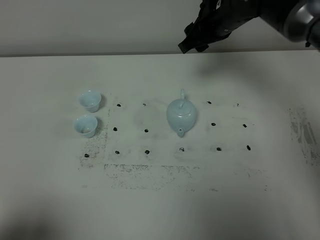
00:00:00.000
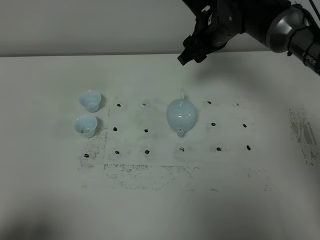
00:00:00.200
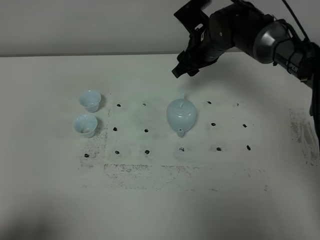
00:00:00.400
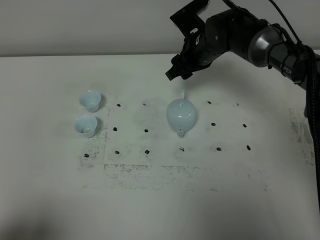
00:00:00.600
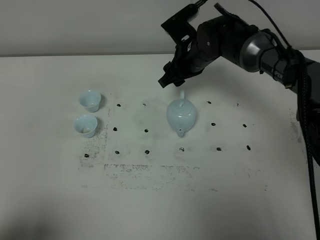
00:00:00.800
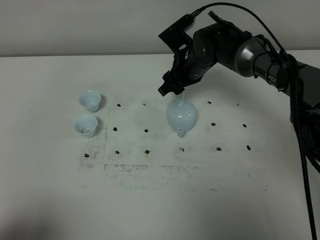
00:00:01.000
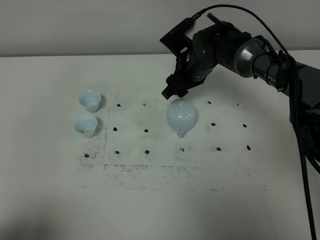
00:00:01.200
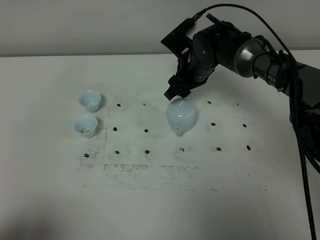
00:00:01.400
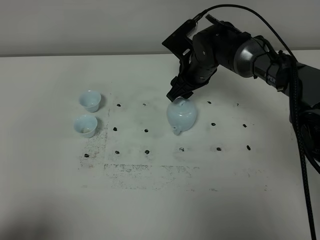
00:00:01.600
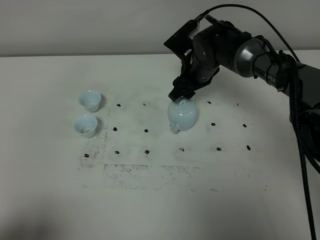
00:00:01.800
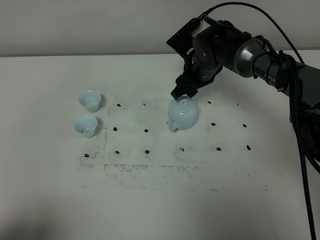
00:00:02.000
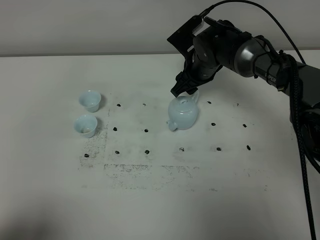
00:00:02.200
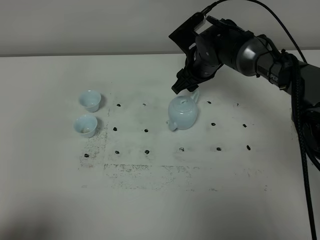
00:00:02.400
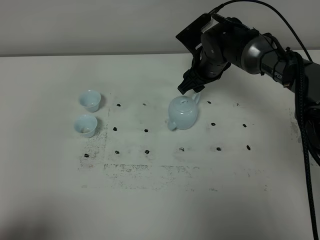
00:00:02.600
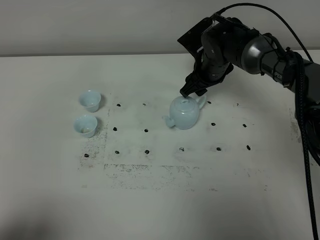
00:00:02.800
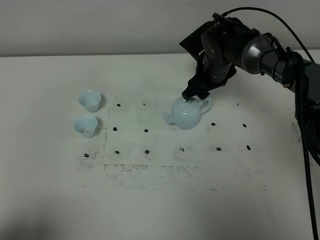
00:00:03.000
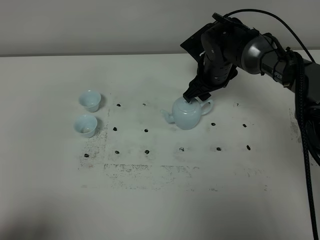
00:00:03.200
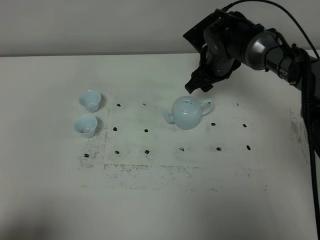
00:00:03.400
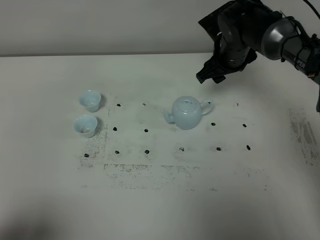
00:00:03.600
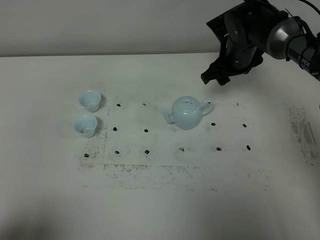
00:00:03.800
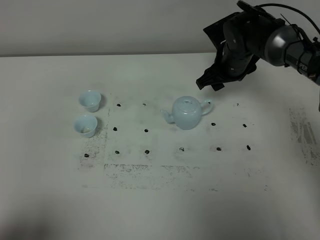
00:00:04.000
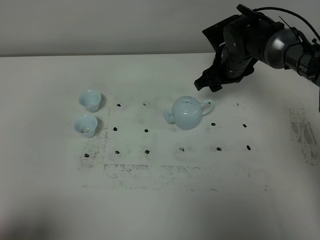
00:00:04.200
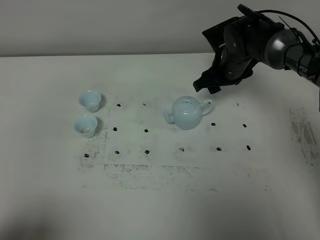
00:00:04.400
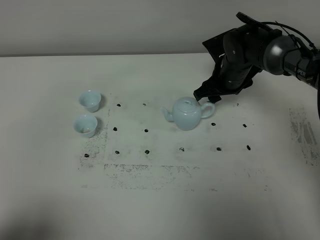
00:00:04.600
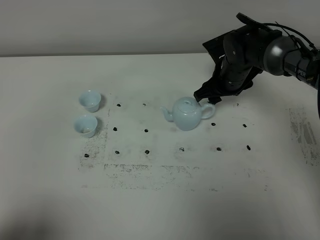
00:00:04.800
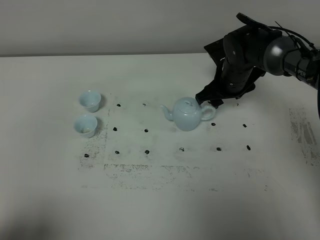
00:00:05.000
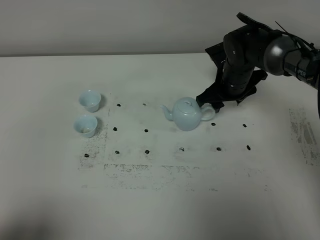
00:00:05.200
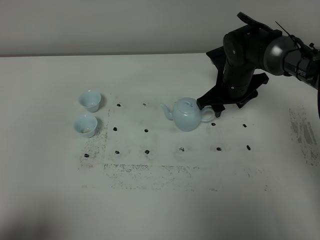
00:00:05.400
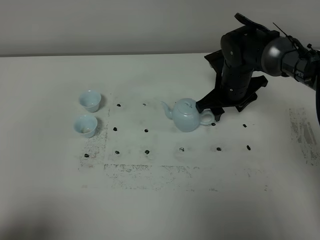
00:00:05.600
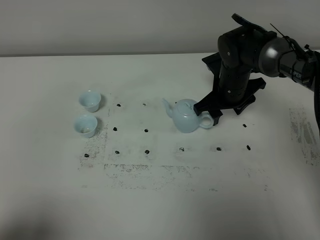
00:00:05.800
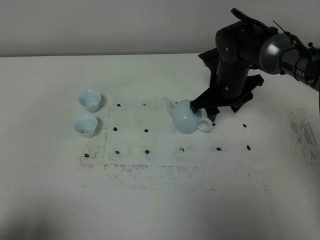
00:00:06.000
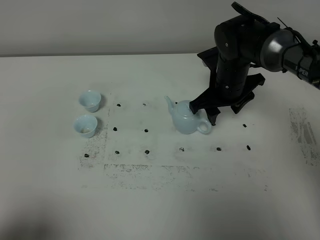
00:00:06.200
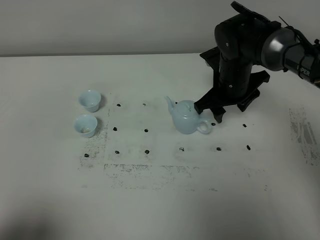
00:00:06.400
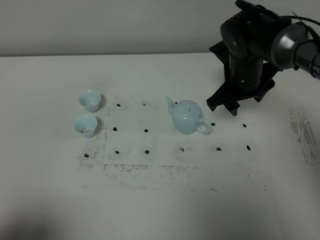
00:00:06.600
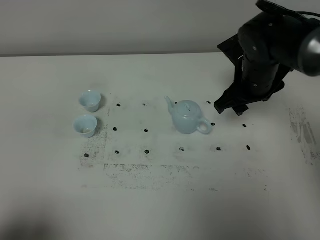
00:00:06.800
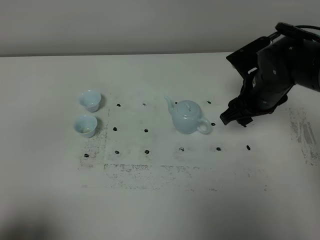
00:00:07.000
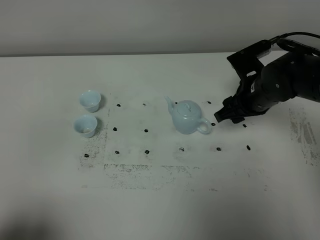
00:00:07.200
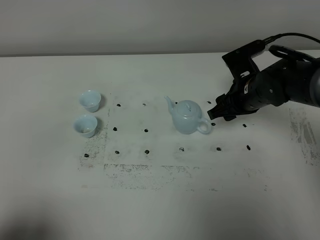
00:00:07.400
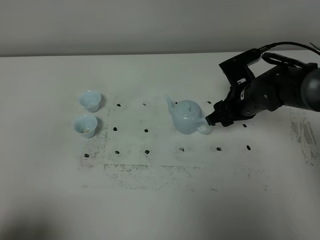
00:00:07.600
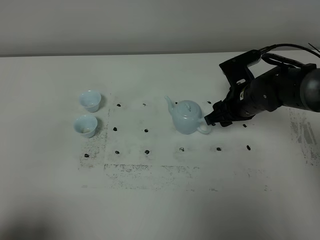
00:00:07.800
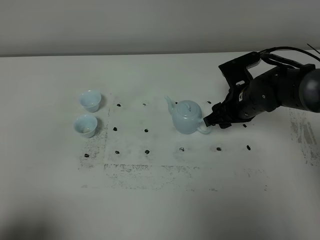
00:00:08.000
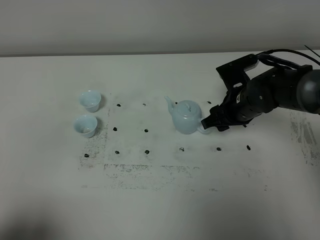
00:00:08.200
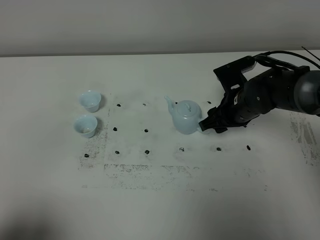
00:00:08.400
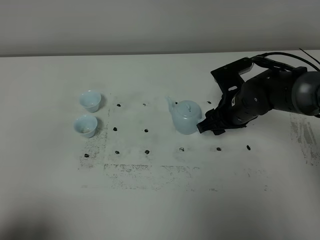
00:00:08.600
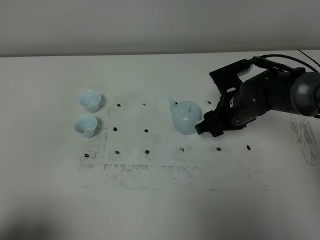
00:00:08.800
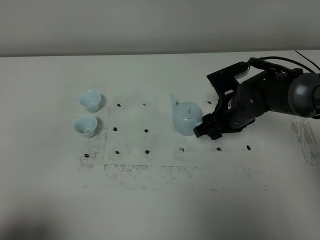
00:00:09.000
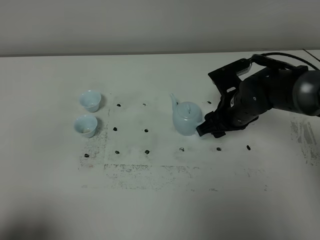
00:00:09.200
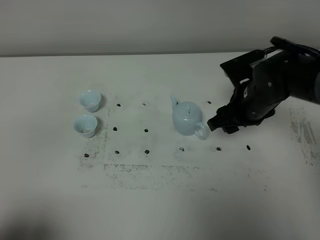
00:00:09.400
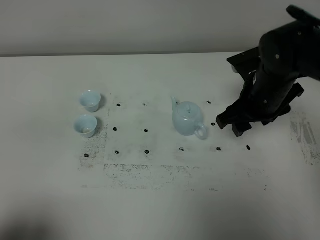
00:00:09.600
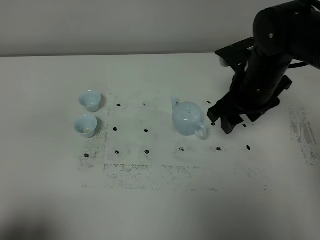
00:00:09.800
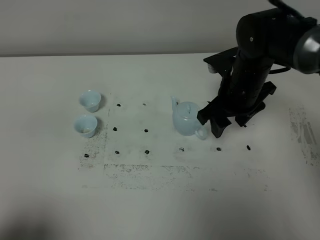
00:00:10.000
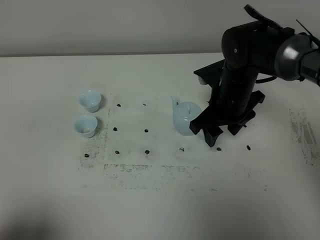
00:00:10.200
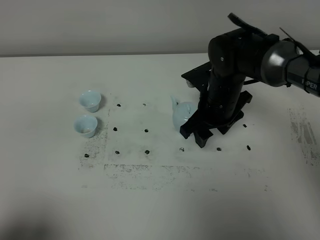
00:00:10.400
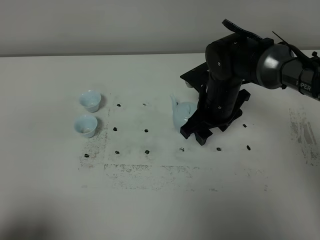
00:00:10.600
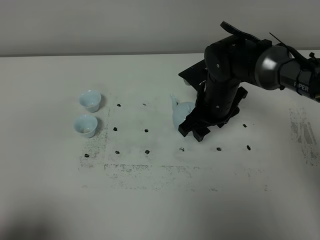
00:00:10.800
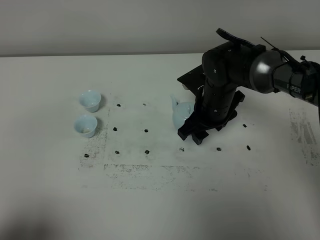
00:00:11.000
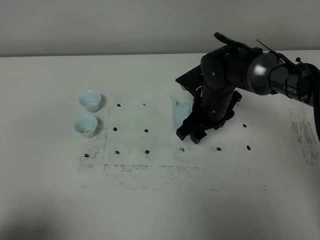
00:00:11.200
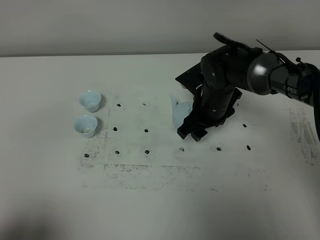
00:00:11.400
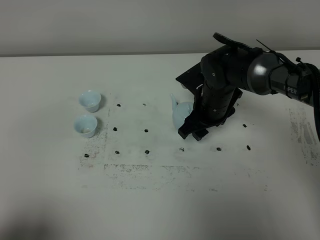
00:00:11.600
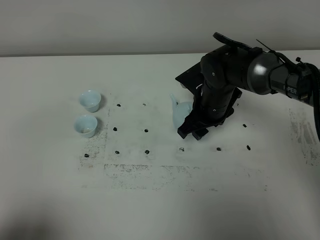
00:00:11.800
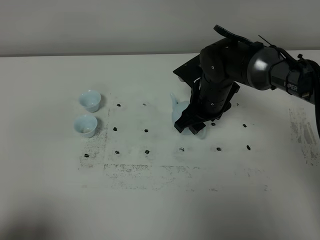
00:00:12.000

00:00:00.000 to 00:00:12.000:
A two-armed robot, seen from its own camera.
Task of the whole recording: grasp the blue porcelain teapot and pour the tea into the two blue porcelain teacups one by one, put the blue porcelain teapot back in its original place.
00:00:00.000 to 00:00:01.600: The right gripper is displaced downward by roughly 10 cm.
00:00:01.600 to 00:00:03.000: The grippers move only a little.
00:00:03.000 to 00:00:04.400: There are only small adjustments of the grippers.
00:00:04.400 to 00:00:06.000: The grippers move only a little.
00:00:06.000 to 00:00:07.600: The right gripper changes place by roughly 5 cm.
00:00:07.600 to 00:00:09.000: There are only small adjustments of the grippers.
00:00:10.400 to 00:00:12.000: There are only small adjustments of the grippers.

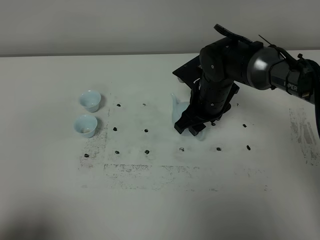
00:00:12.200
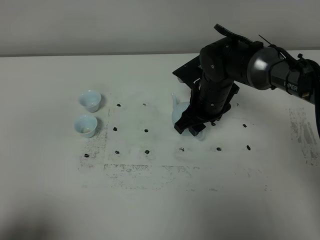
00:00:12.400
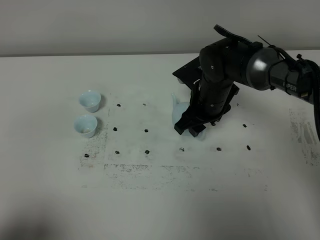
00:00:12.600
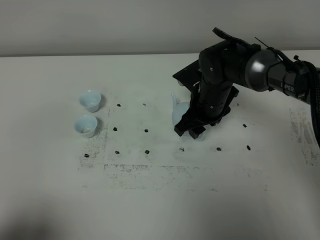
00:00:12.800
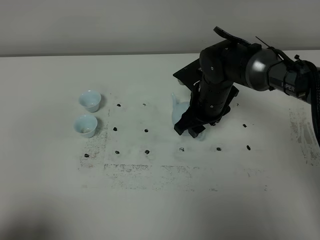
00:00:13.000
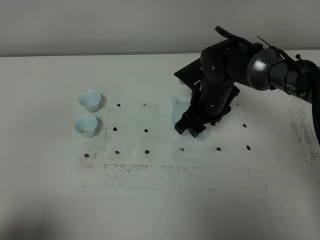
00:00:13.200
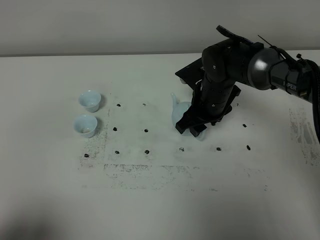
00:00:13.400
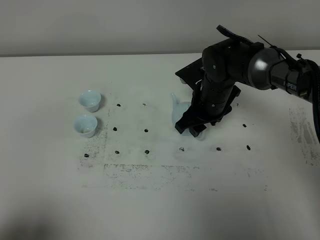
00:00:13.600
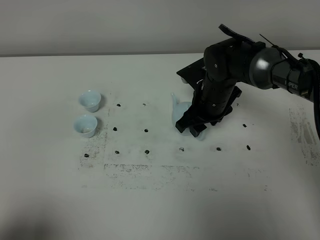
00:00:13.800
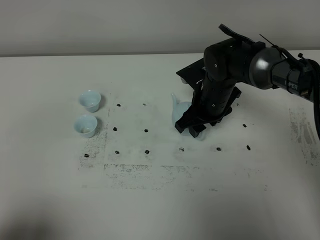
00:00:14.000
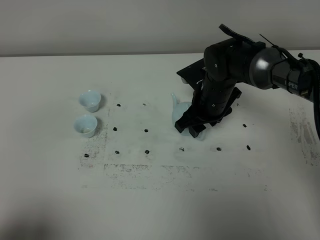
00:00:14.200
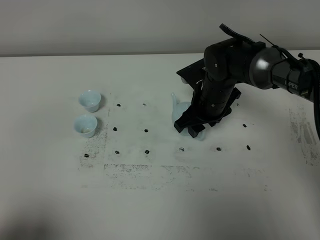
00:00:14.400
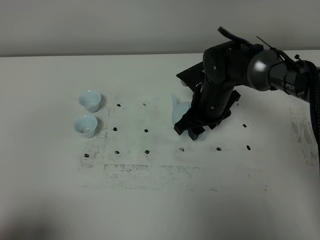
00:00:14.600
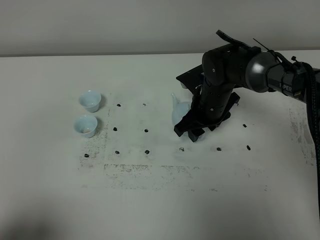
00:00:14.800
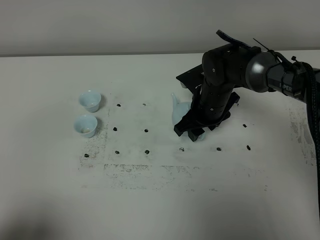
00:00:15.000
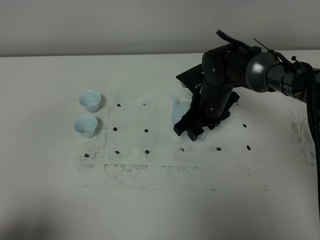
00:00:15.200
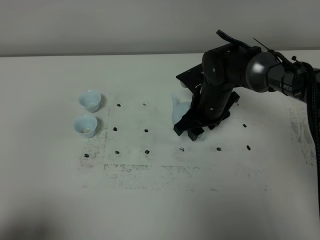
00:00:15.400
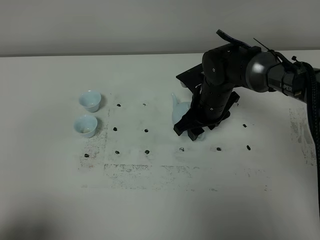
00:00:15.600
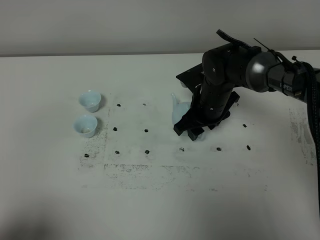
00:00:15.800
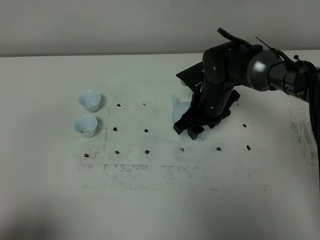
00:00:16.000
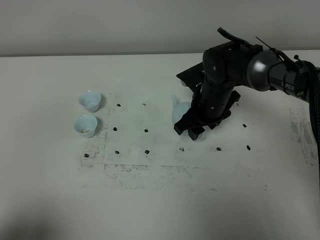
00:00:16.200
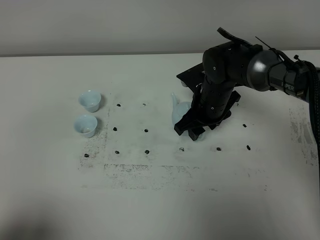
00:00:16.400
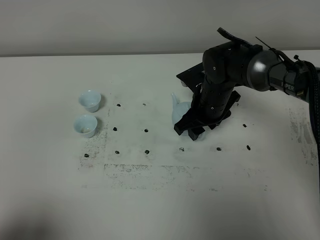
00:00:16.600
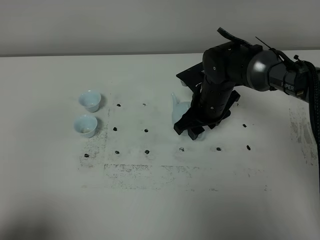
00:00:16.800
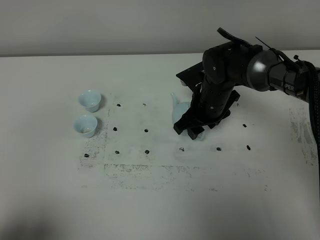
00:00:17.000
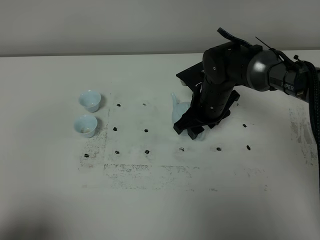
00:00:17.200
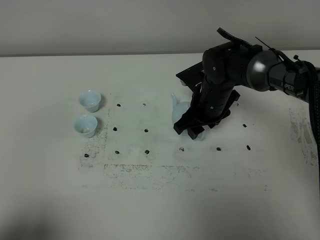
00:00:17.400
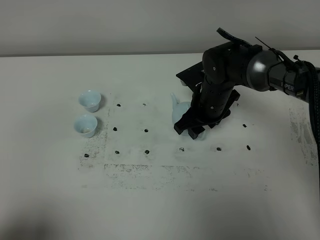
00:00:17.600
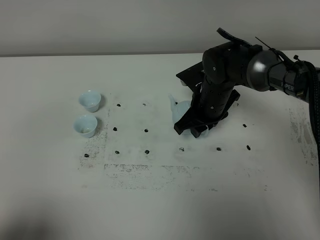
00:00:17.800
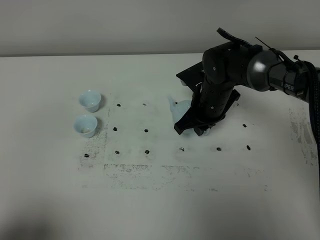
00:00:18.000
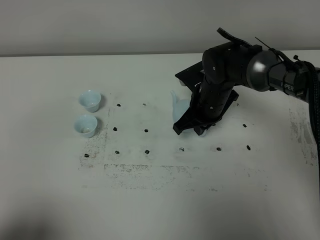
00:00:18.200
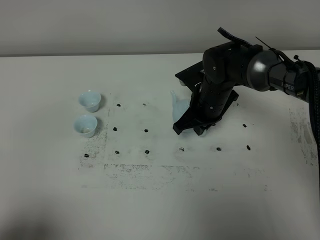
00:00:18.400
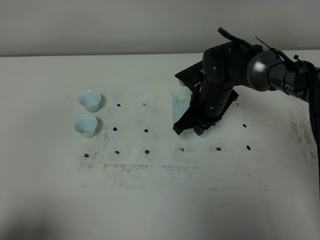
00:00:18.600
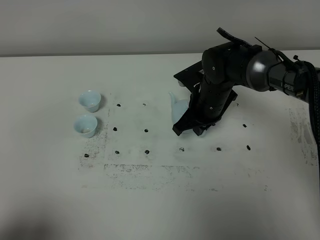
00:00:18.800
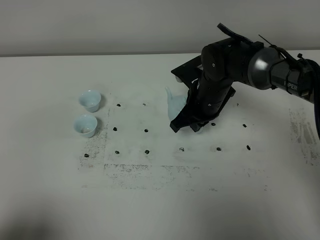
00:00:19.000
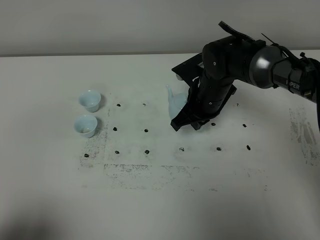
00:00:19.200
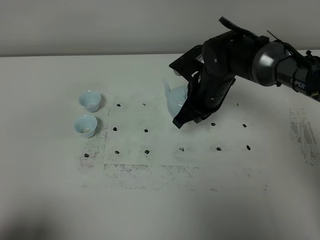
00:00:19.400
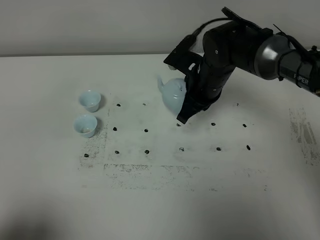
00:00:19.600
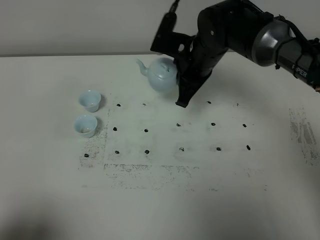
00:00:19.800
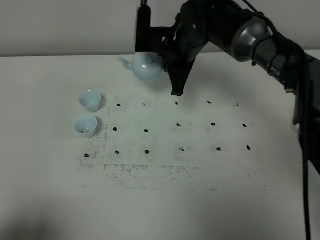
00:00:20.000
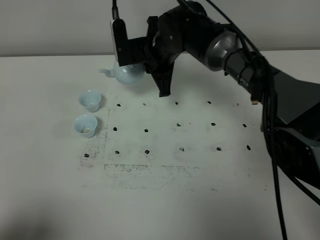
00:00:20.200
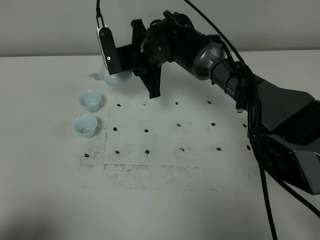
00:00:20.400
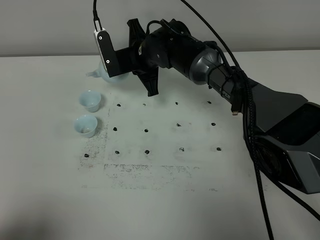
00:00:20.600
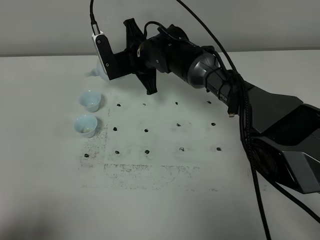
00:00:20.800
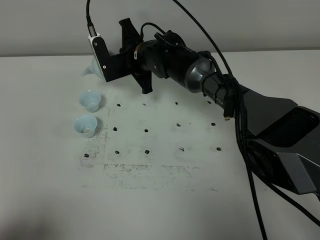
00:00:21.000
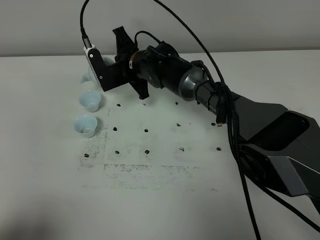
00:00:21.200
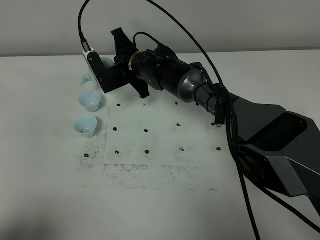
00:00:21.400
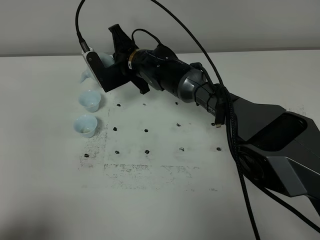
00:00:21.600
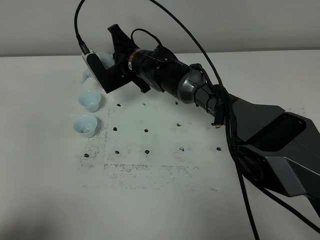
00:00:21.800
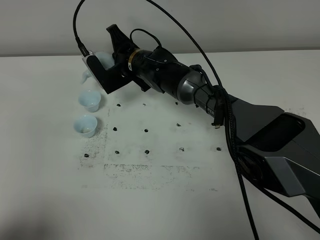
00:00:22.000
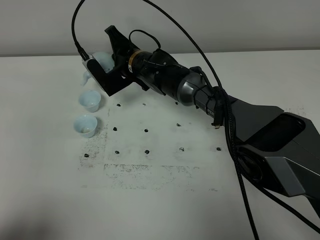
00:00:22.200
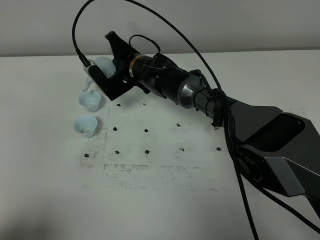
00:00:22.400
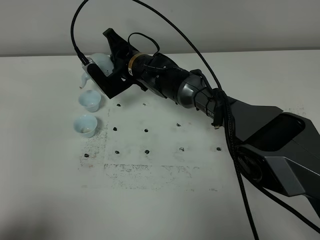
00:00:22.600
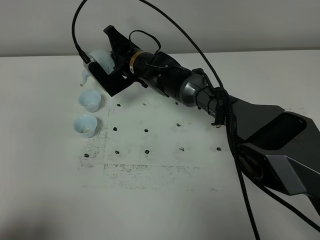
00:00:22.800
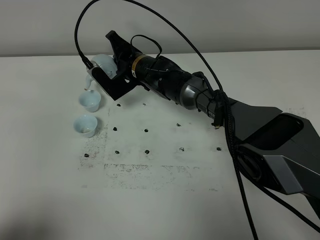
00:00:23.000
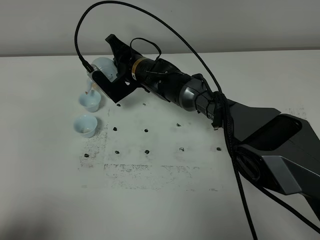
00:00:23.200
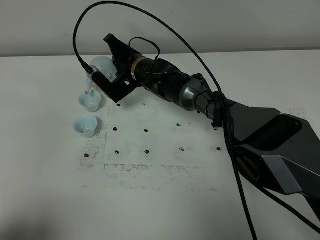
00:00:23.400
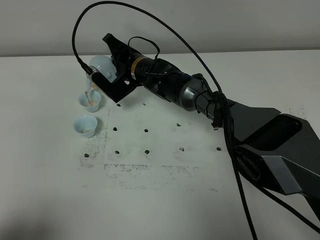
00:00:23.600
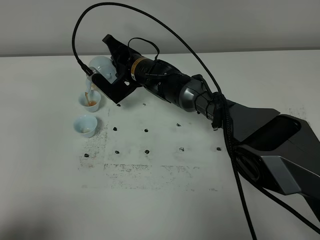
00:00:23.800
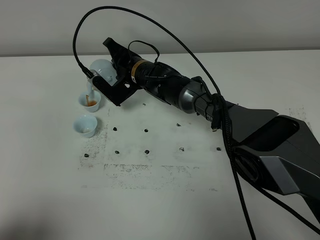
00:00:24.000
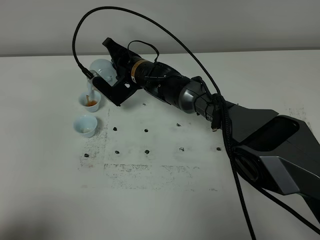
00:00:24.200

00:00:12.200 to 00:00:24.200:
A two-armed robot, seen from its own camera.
Task of the whole recording: grasp the blue porcelain teapot and pour the tea into the two blue porcelain teacups one by one, put the blue porcelain teapot back in its original place.
Step, 00:00:12.200 to 00:00:19.200: Pick up the teapot with the right gripper.
00:00:12.200 to 00:00:13.800: The two grippers keep their place.
00:00:13.800 to 00:00:16.600: Both grippers stay put.
00:00:16.600 to 00:00:18.200: The right gripper closes.
00:00:18.200 to 00:00:19.800: The right gripper is displaced upward by some 10 cm.
00:00:19.800 to 00:00:21.200: The right gripper goes roughly 15 cm to the left, downward and forward.
00:00:21.200 to 00:00:22.600: The grippers stay close to where they were, moving slightly.
00:00:22.600 to 00:00:24.200: There are only small adjustments of the grippers.
